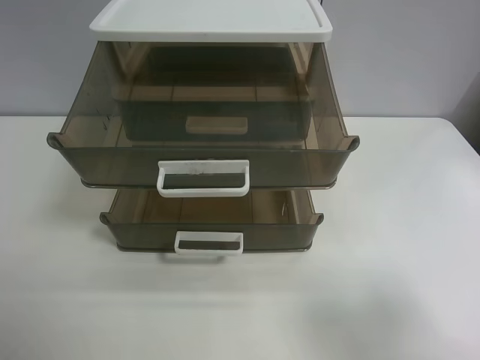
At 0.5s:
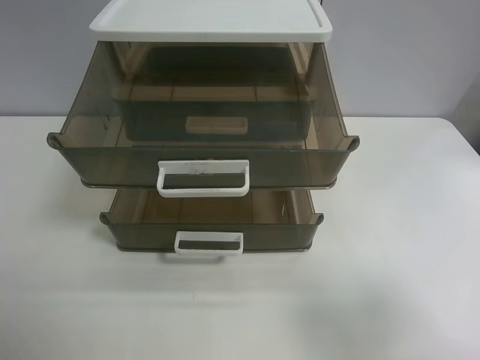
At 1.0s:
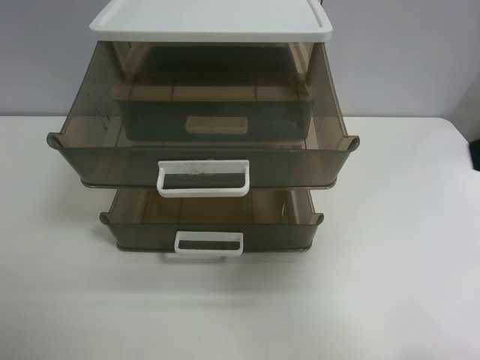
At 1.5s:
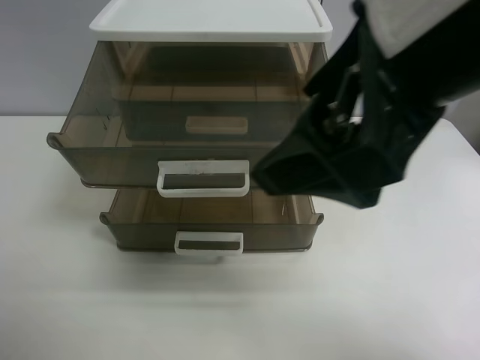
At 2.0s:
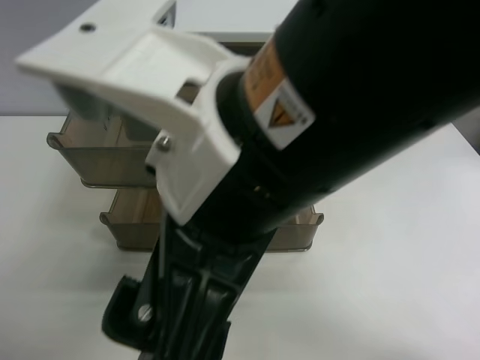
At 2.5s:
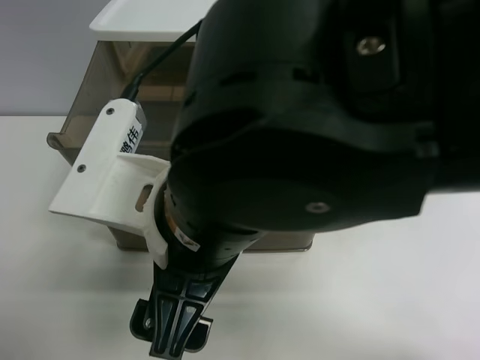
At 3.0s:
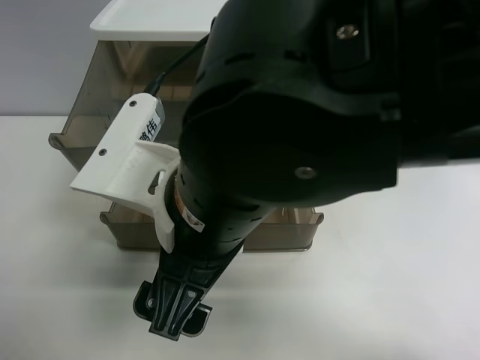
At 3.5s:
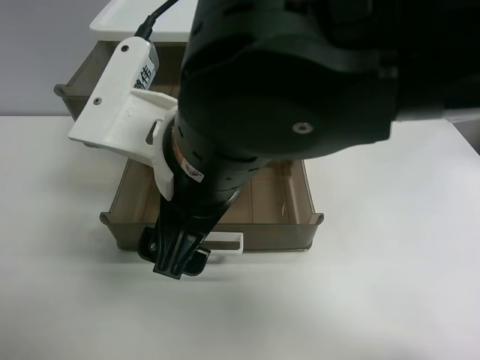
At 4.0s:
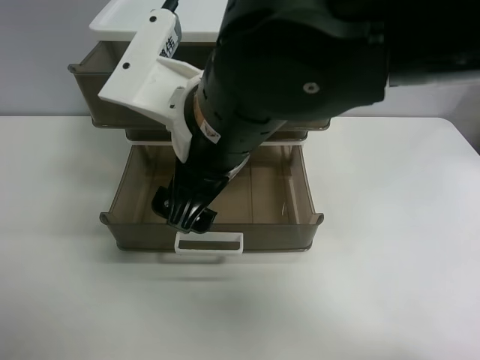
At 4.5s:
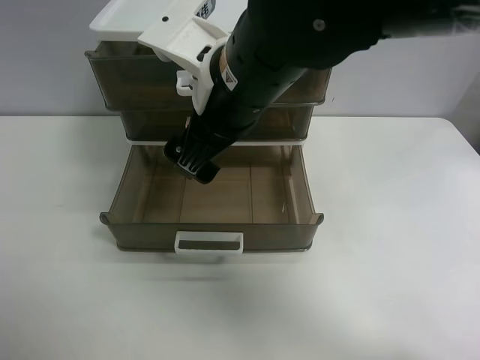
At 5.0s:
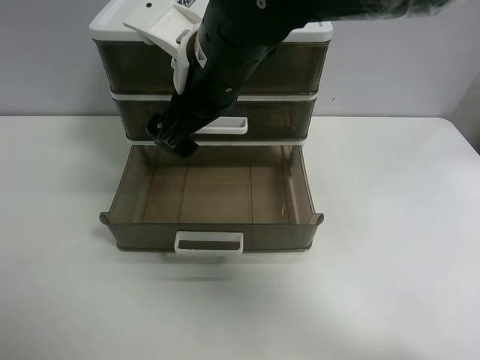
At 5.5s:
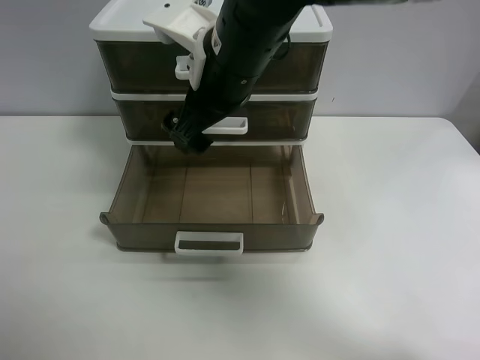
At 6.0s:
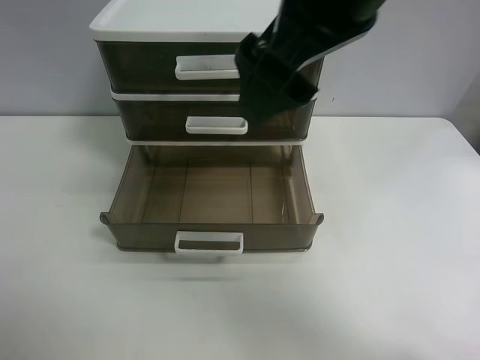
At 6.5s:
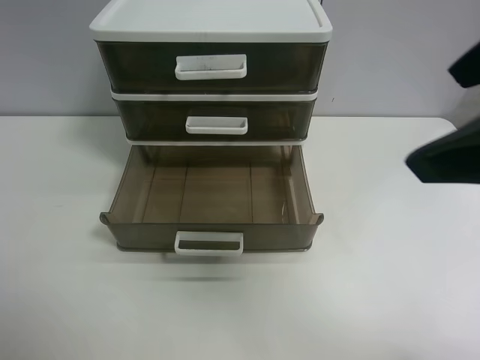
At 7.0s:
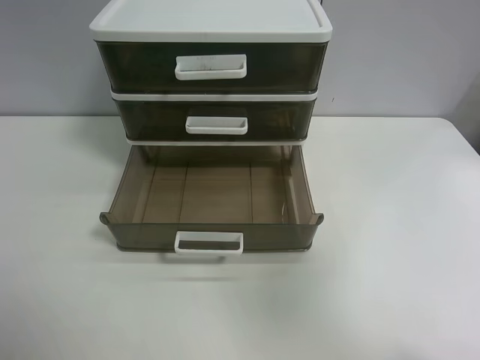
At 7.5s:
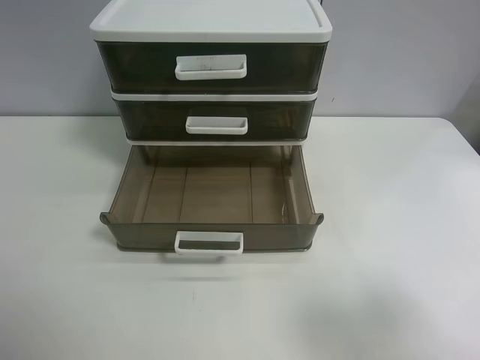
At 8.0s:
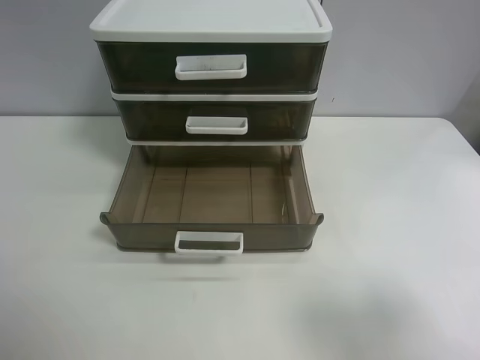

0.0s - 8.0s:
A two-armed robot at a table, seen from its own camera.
Task of the whole recording: close the top drawer.
Step, 0.0s - 3.0s: Use the right gripper to touch the topmost layer of the storage cabinet.
Step, 3.5s - 5.0s: Push the top drawer closed.
0.0s - 2.0s: The right gripper shifts roughly 30 cm to the left.
2.0s - 4.0s: The right gripper moves forward, some 10 cm.
4.0s - 6.0s: The right gripper shifts approximately 15 cm upward and to the right.
6.0s - 8.0s: The right gripper is displaced to the right, backward and downward by some 30 cm.
